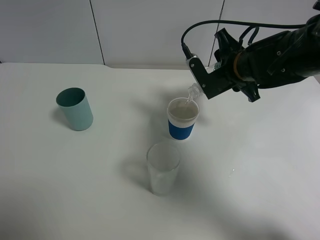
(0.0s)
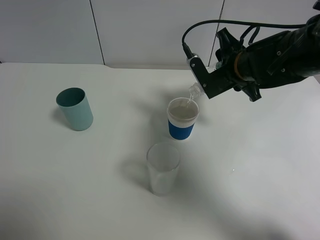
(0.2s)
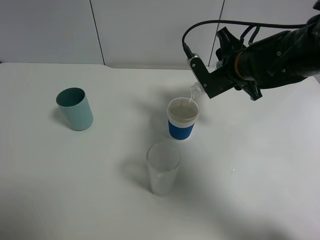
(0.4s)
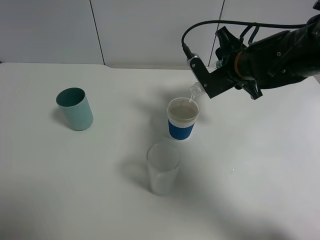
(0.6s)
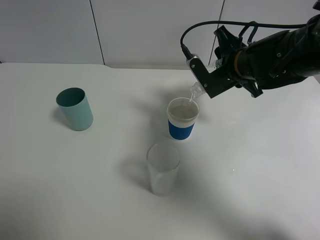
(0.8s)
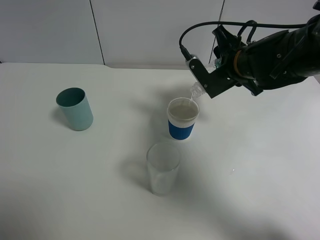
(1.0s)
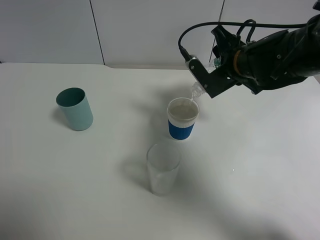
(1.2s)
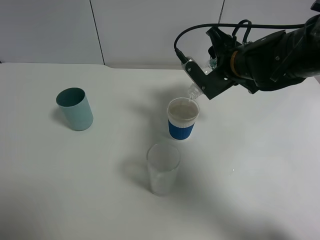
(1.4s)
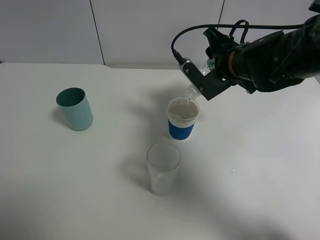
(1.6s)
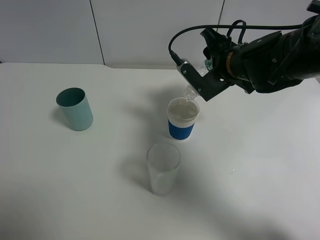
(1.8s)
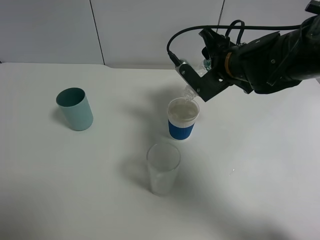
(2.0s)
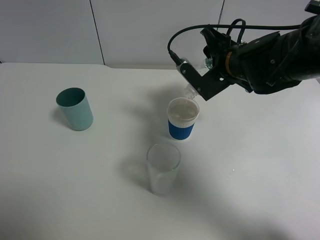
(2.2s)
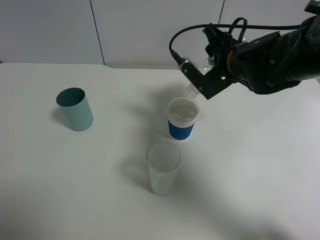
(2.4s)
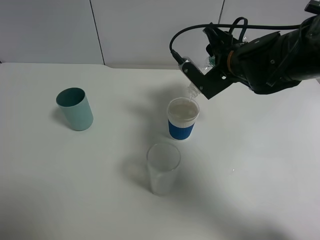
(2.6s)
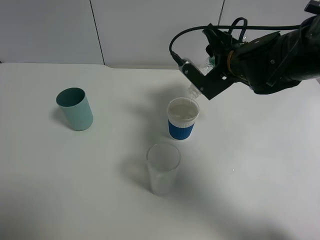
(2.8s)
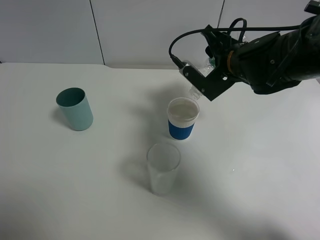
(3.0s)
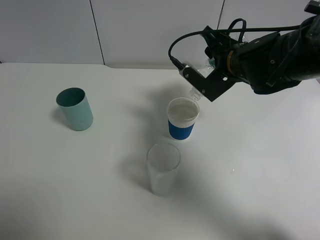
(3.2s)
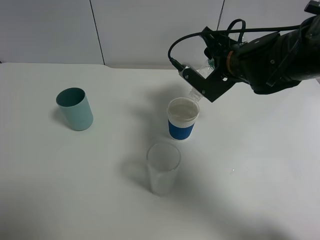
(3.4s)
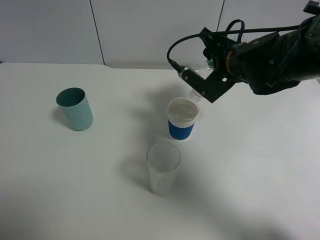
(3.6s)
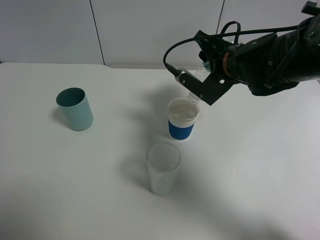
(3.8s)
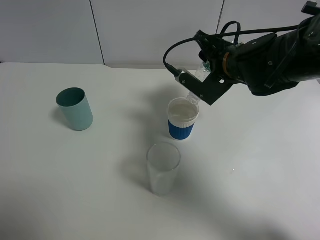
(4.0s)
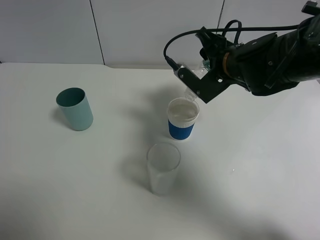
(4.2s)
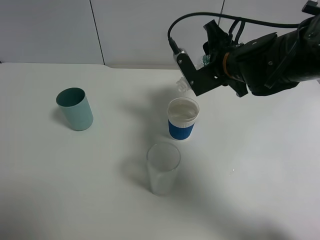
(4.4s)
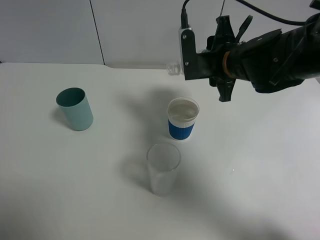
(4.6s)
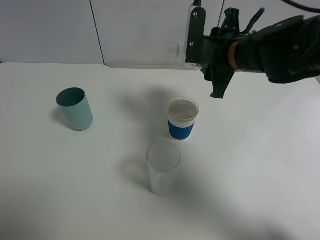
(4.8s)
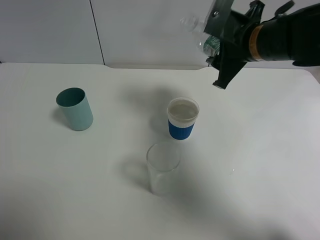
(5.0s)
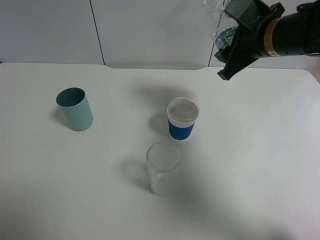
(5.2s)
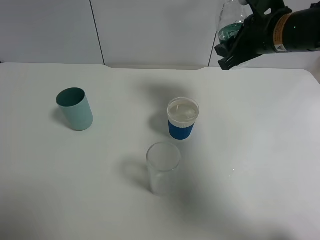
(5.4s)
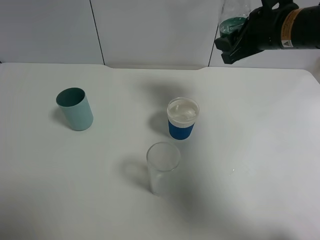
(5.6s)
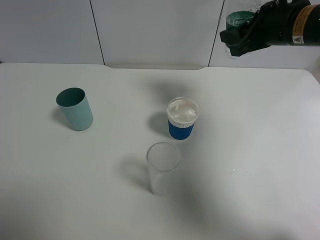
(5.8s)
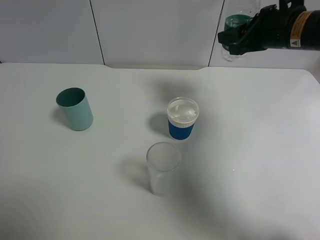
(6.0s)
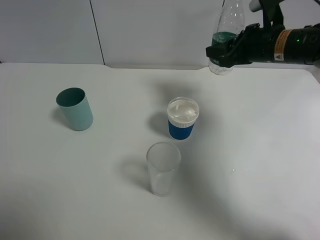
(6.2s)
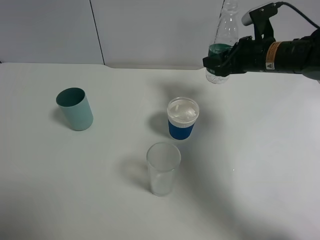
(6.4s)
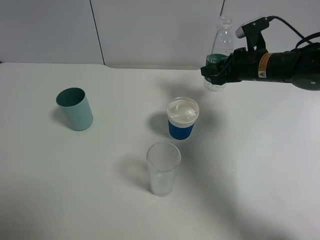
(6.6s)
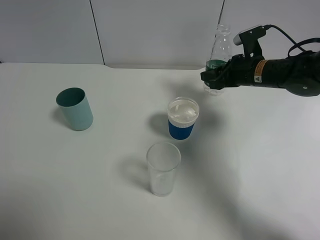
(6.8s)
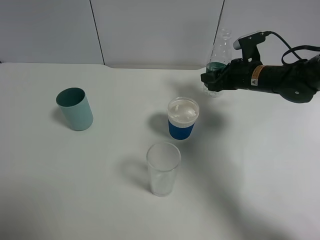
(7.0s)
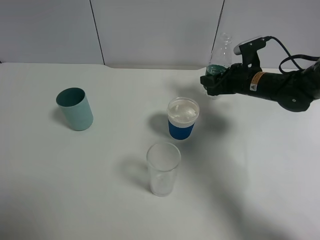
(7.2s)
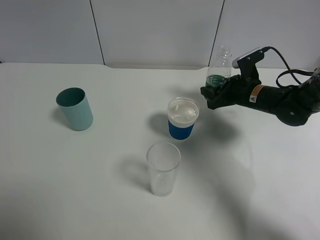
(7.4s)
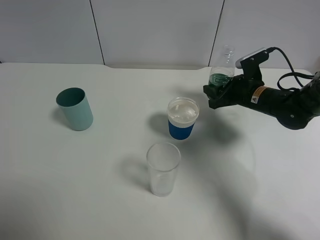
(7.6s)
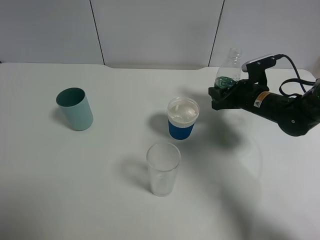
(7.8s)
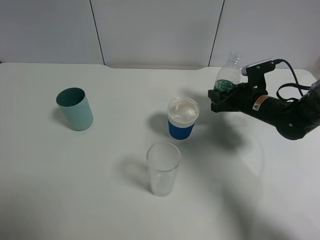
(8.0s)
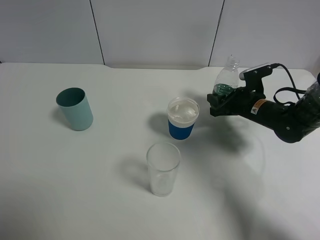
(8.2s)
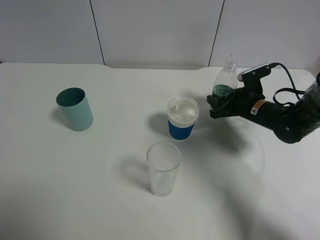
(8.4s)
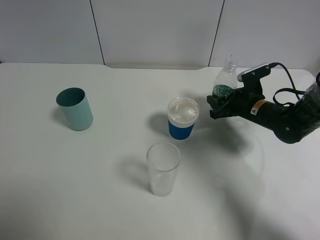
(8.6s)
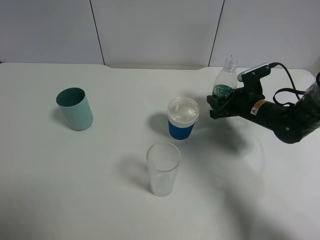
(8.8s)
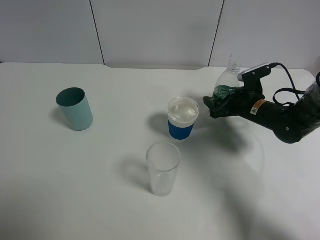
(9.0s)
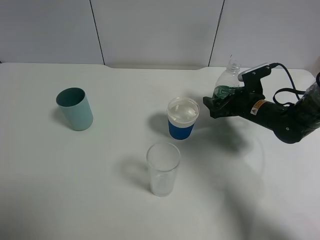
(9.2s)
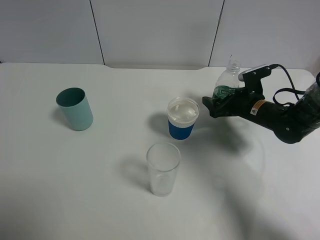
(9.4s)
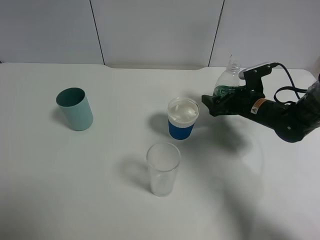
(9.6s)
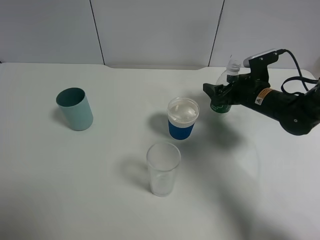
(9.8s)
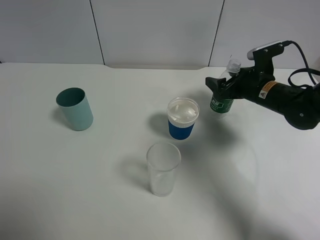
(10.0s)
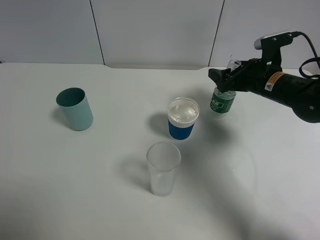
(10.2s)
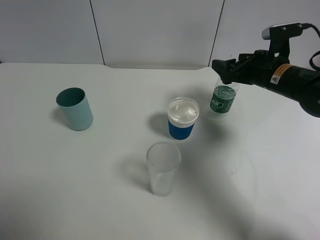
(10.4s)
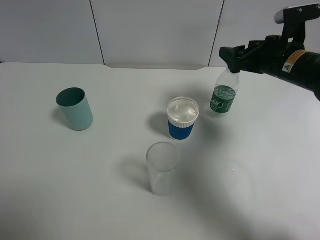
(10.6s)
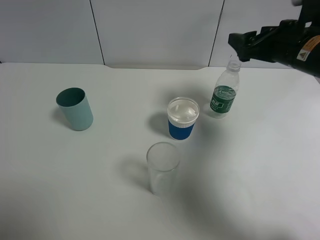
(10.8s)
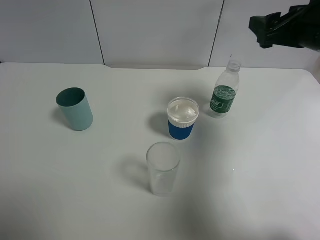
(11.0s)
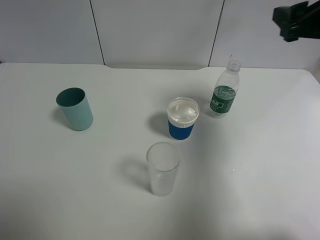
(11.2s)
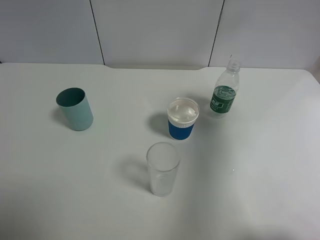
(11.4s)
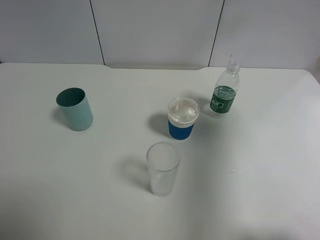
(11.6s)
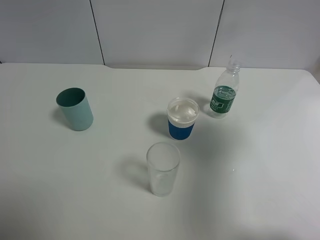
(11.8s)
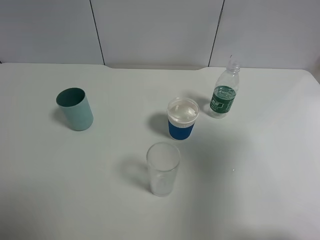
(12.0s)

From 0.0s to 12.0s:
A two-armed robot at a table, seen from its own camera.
Task of the whole recording: use a gripper to hold the bottle of the drink and pour it into a random cup.
Step, from 0.0s to 4.4s: Pour the mineral water into the paper cup with the right gripper.
Step, from 4.6s to 9.8s: Place the mineral water bottle on the table with the right gripper.
From 0.0s to 3.0s: The grippers stay close to where they were, moving slightly.
From 4.4s to 6.0s: The right gripper goes approximately 10 cm to the right and upward.
From 6.0s to 7.6s: The right gripper is displaced downward by about 15 cm.
From 7.6s to 9.0s: The right gripper opens its fingers.
From 9.0s to 10.4s: The right gripper is displaced upward by approximately 10 cm.
From 10.4s to 12.0s: The right gripper heads backward and upward, covering about 30 cm.

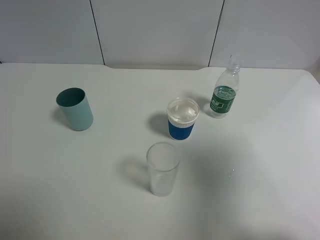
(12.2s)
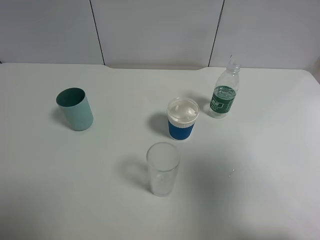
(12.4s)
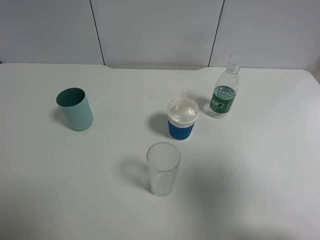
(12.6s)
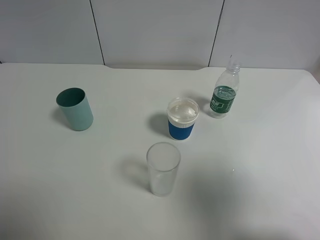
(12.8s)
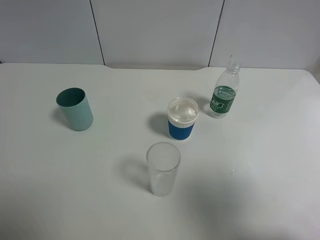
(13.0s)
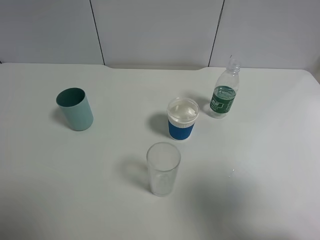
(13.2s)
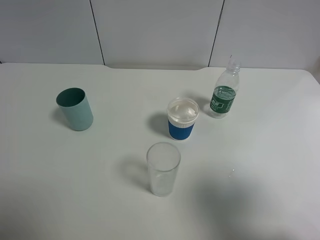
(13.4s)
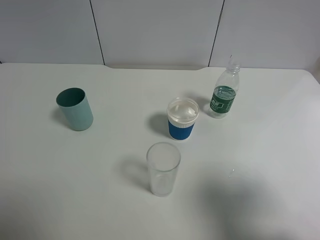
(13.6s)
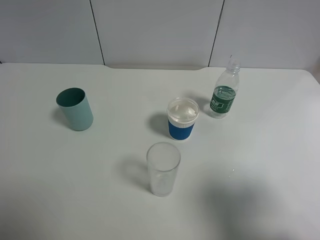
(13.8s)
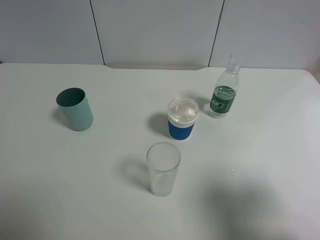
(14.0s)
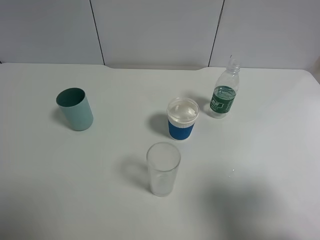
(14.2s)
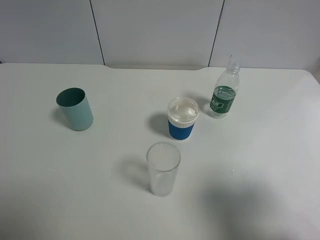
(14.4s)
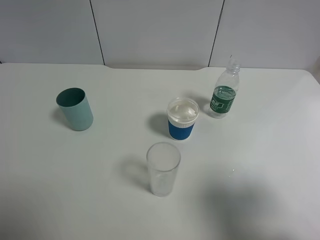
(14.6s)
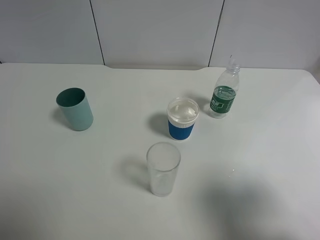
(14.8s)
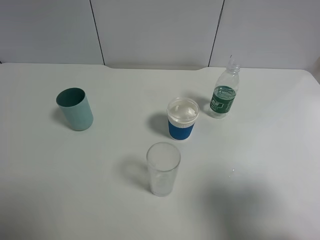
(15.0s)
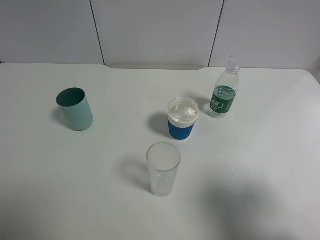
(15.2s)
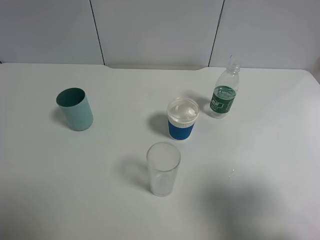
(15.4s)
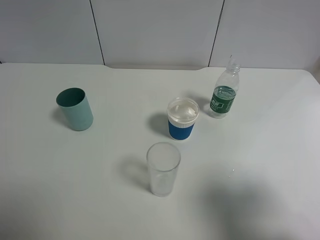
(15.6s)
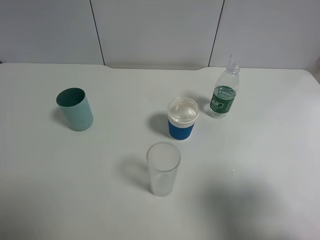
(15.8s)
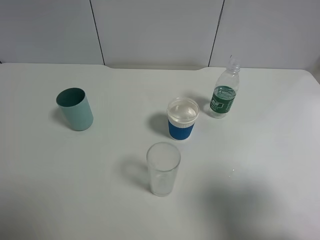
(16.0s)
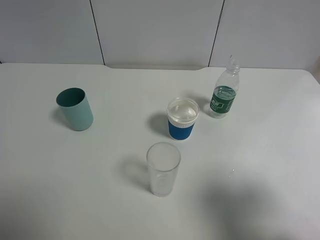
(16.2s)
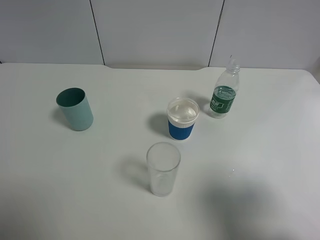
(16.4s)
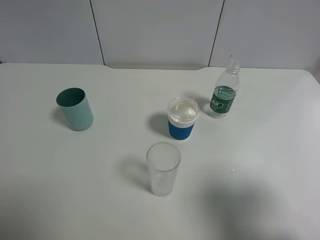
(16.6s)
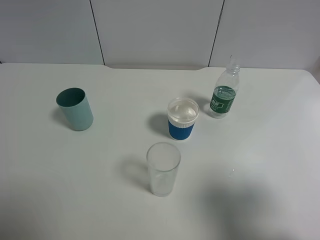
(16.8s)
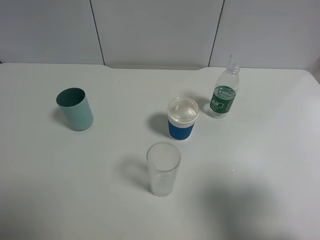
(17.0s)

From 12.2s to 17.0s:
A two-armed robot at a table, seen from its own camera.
Task of the whole recording: use a gripper to hold the bottle of the drink and pour it into a random cup.
From 12.2s to 13.8s: The right gripper shifts about 10 cm downward.
From 13.8s to 17.0s: Both grippers stay put.

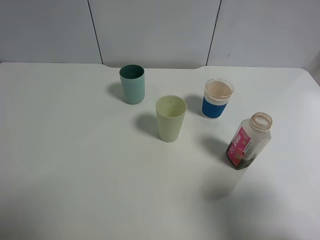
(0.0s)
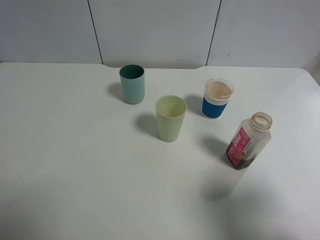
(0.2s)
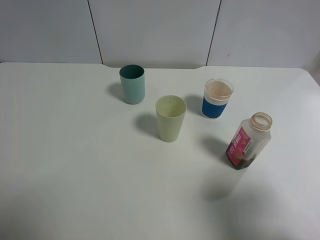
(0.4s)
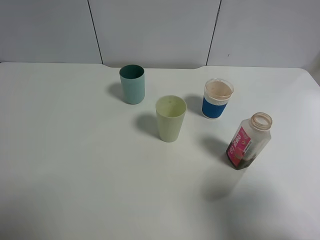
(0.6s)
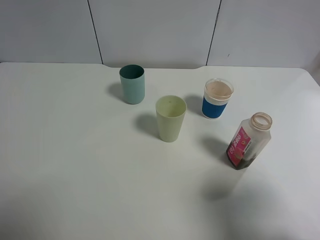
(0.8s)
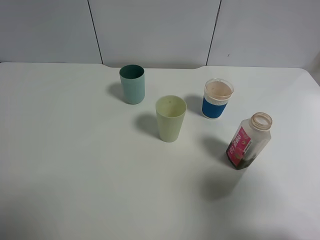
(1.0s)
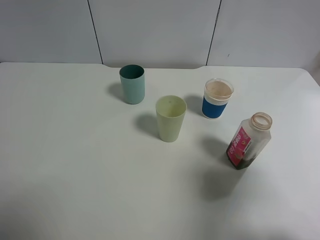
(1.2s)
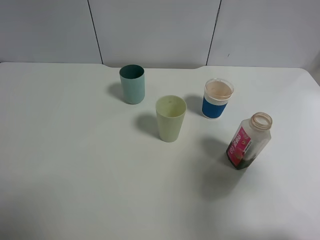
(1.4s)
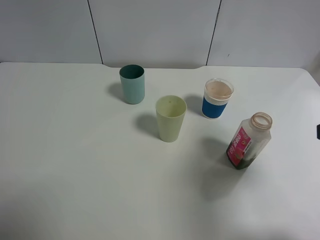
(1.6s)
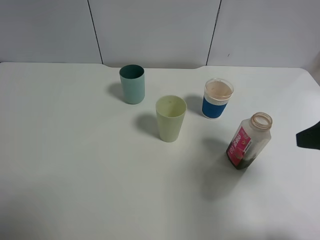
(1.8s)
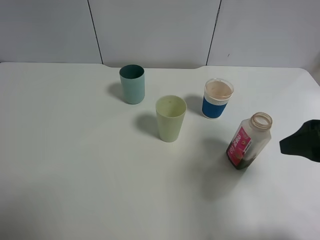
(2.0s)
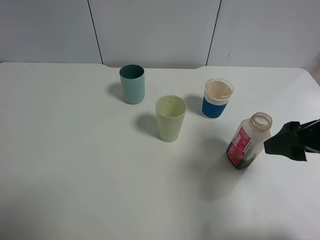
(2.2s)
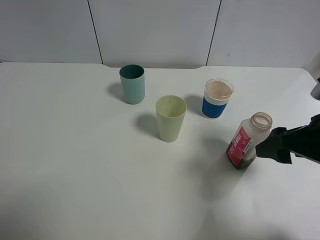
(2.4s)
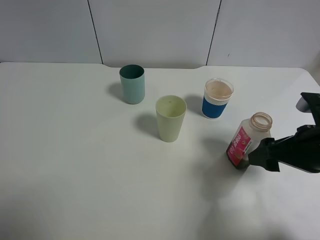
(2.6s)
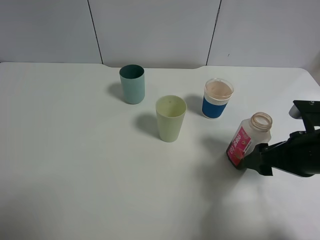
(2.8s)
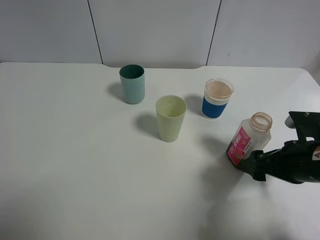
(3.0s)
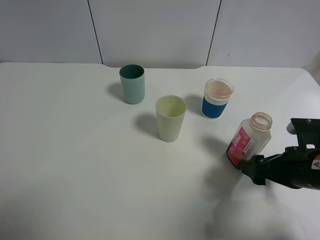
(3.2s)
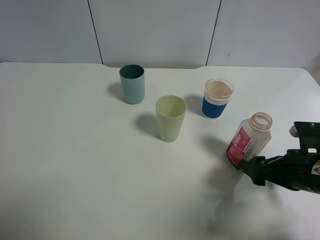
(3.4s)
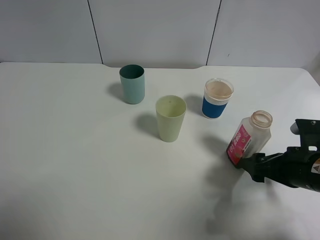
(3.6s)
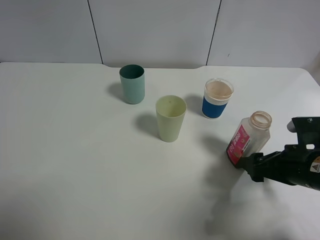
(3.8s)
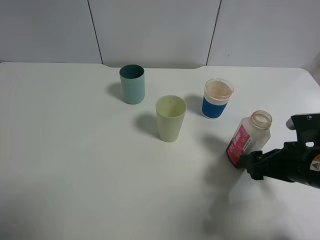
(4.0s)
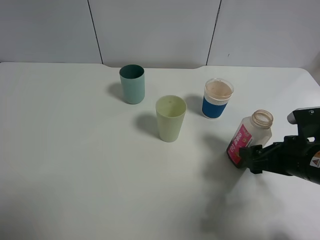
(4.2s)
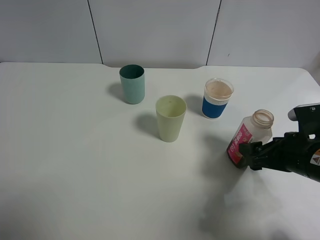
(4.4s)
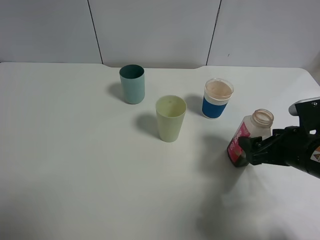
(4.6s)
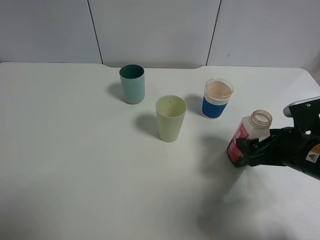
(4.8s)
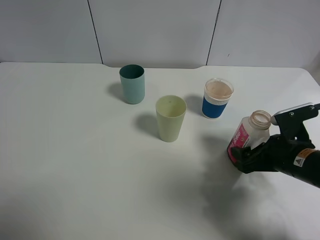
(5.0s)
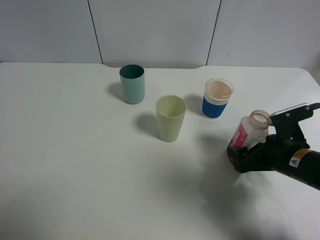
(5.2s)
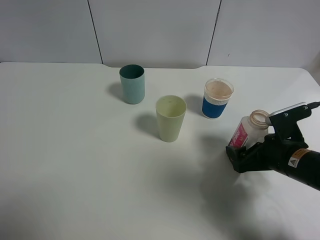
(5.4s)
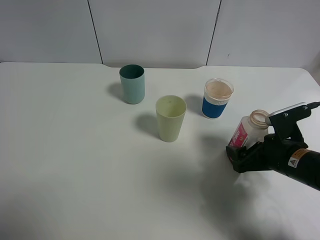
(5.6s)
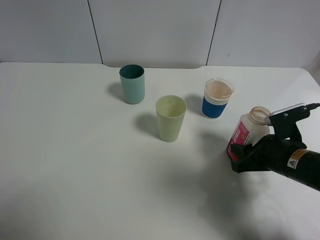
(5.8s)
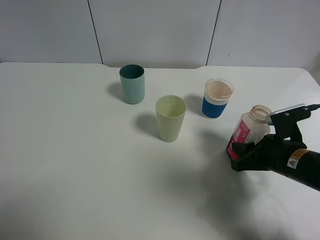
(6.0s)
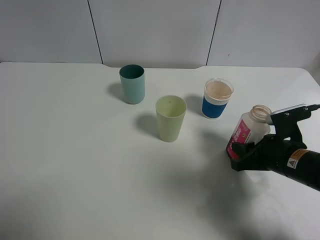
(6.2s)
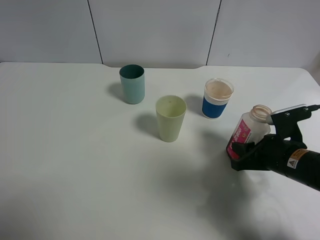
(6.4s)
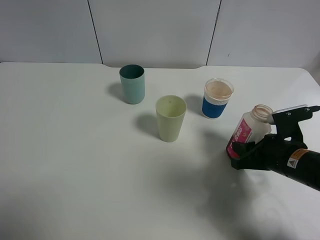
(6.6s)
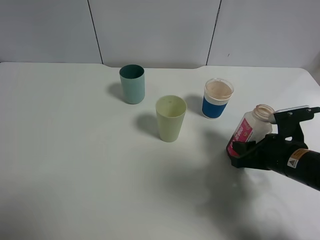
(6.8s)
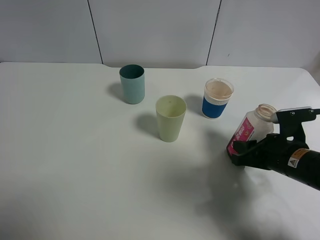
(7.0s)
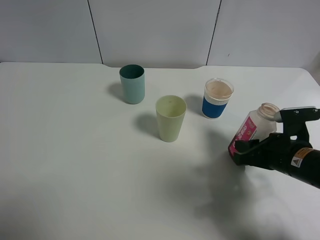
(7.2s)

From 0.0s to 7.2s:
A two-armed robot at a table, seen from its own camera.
Task of the whole recording: use a gripper to hold the bottle of the drink and pour it into a random cup.
Step, from 0.0s to 5.8s: Grasp the cranberry juice bottle with the right gripper.
From 0.0s to 1.4s: The right gripper travels forward by approximately 10 cm.
From 1.4s to 2.8s: The right gripper travels downward and forward by about 15 cm.
From 4.4s to 5.8s: The right gripper closes up.
From 5.8s to 7.2s: The grippers make only small movements.
